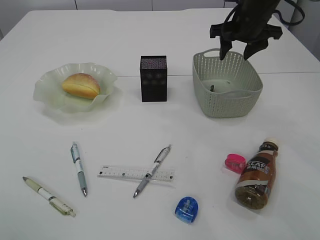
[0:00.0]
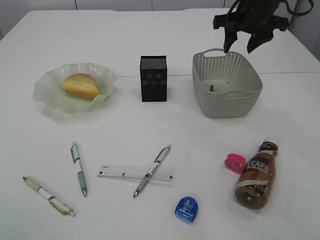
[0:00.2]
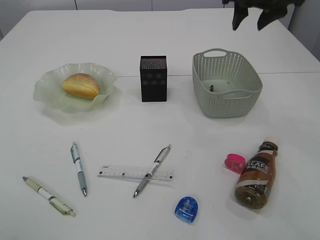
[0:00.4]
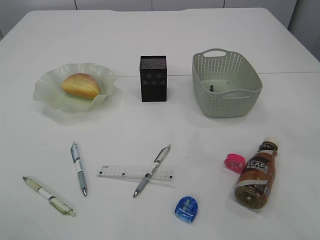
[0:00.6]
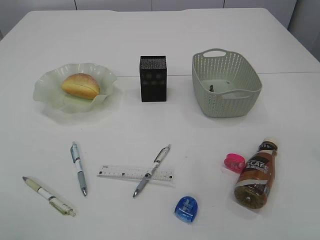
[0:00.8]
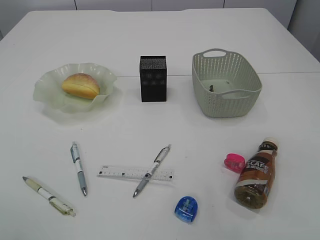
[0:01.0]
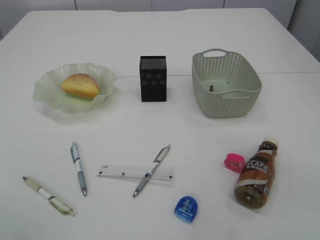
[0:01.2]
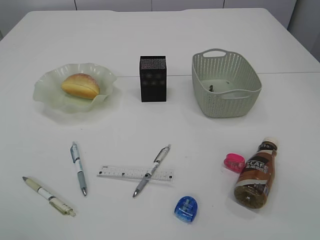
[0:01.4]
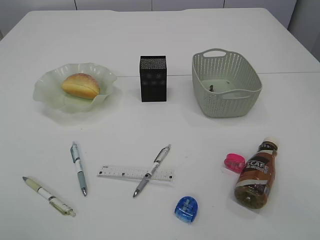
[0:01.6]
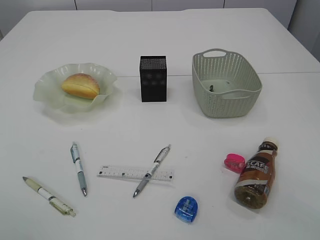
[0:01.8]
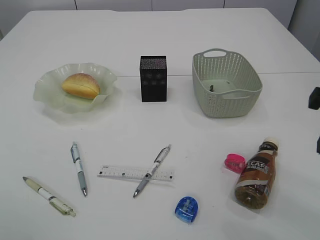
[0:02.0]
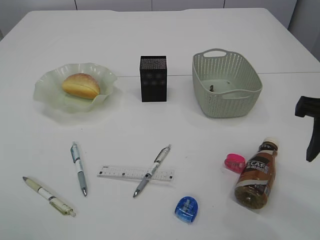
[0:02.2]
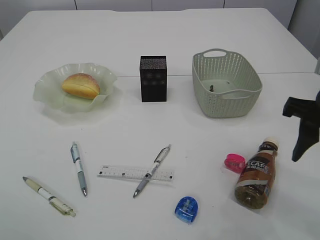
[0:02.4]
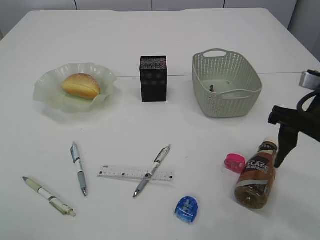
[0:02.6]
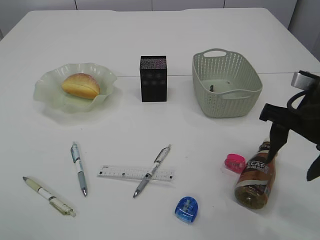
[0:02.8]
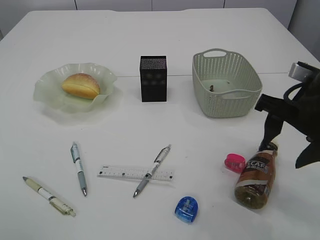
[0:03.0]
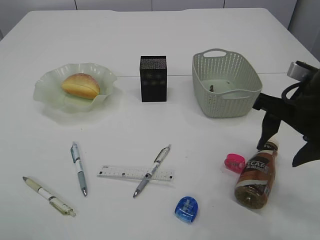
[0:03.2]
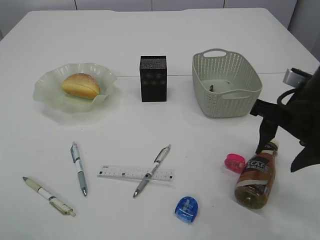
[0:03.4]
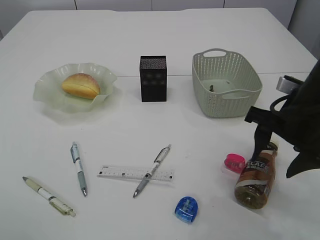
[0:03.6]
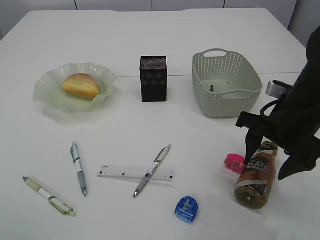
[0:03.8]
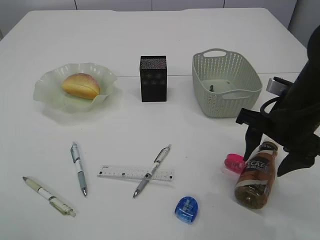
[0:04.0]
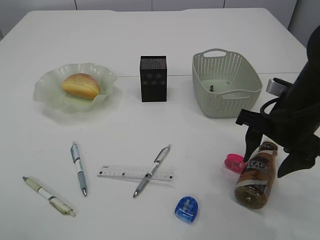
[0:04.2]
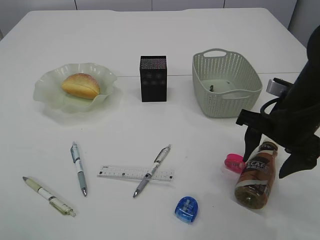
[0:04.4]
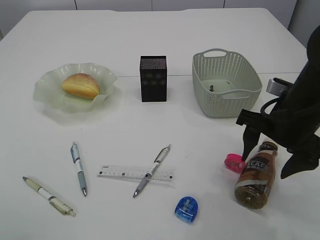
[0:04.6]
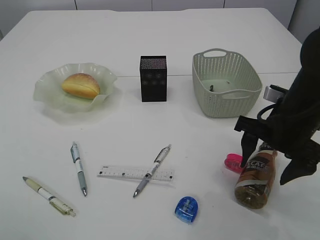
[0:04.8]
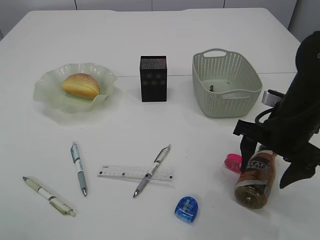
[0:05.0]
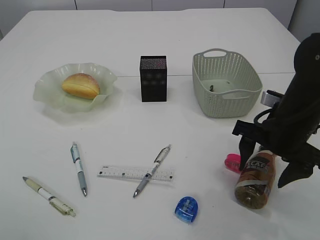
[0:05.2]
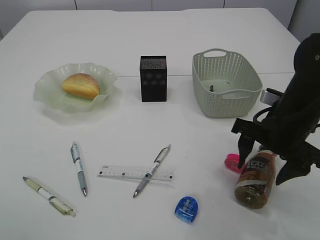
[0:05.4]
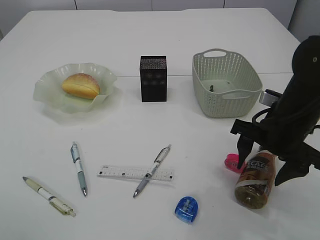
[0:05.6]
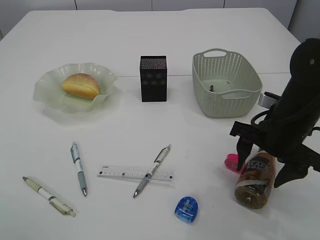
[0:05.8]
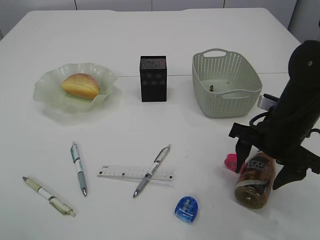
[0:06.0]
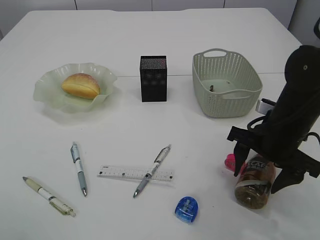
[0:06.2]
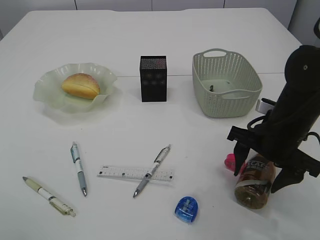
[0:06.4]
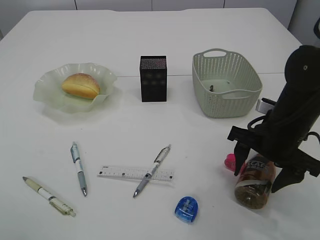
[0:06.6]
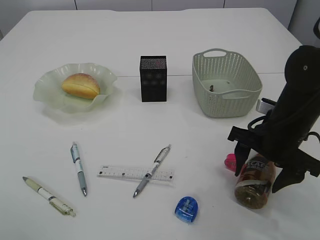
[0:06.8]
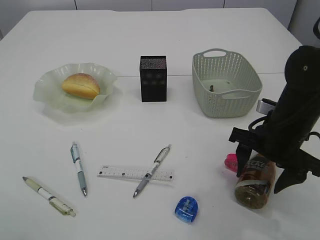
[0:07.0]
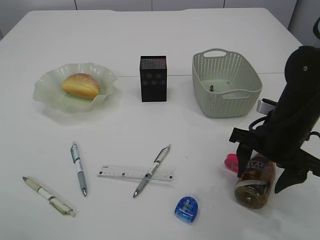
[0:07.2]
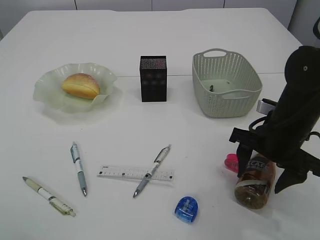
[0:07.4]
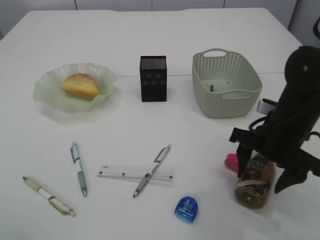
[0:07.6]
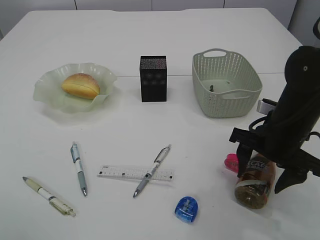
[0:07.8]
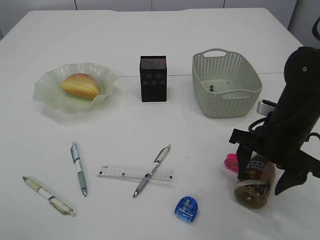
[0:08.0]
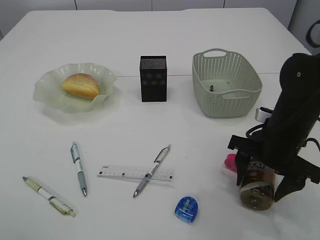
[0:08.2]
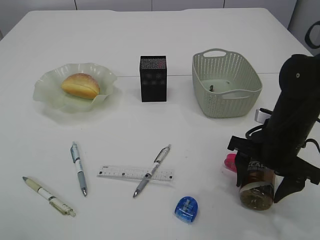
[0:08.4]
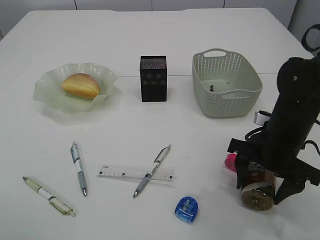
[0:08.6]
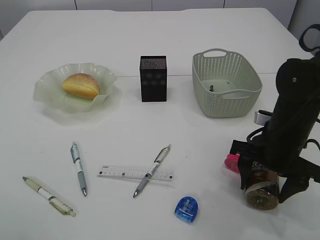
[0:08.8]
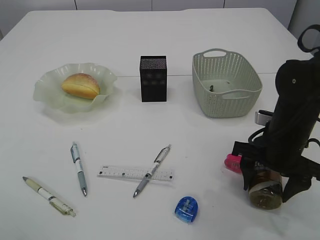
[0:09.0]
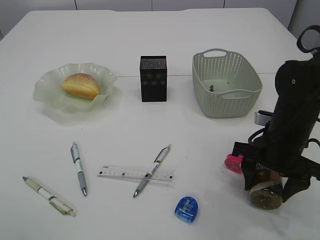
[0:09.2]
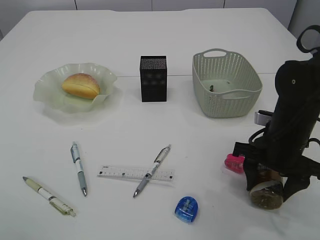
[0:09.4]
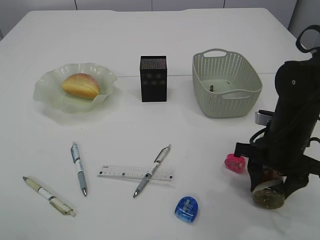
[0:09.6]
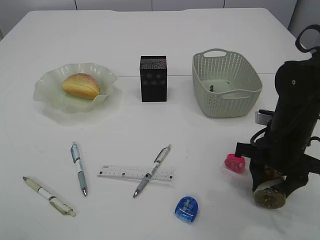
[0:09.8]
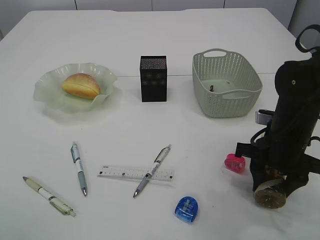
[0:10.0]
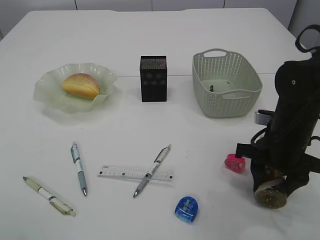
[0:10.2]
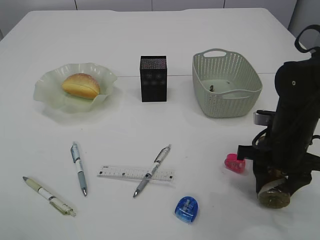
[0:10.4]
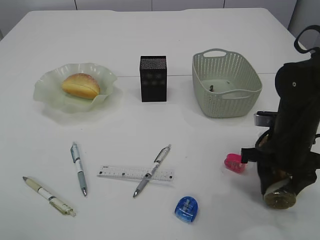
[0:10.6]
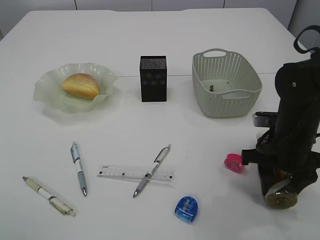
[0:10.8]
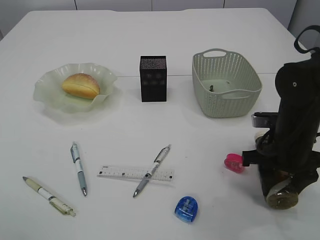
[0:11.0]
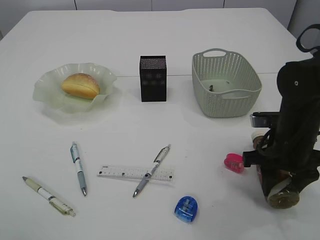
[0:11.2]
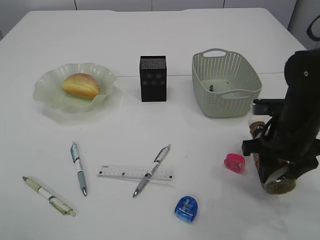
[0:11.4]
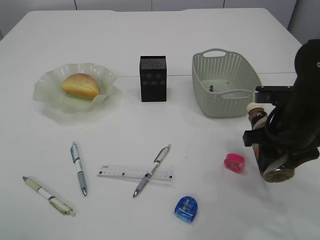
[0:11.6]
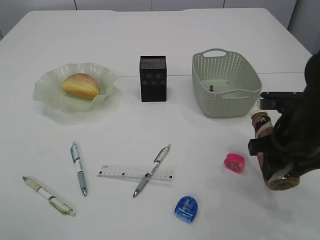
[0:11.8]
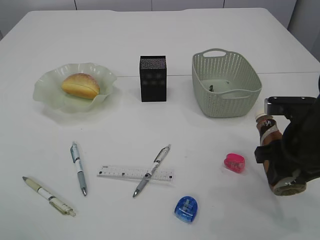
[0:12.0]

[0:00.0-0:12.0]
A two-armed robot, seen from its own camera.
Step, 0:00.4 to 0:12.0: Pick up the bottle with the right arm.
0:00.0 to 0:01.6: The right gripper goes roughly 30 cm backward.
0:01.6 to 0:03.0: The right gripper moves downward and forward, roughly 15 cm.
0:03.0 to 0:04.4: The grippers make only small movements.
0:04.4 to 0:06.0: The grippers move only a little.
0:06.0 to 0:07.6: Both grippers stay about where they are.
0:07.6 to 0:10.4: The grippers make only small movements.
0:10.4 to 0:12.0: The right gripper moves about 5 cm.

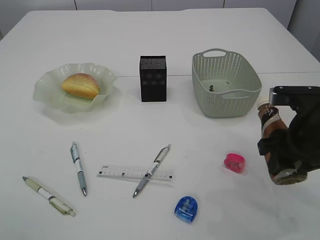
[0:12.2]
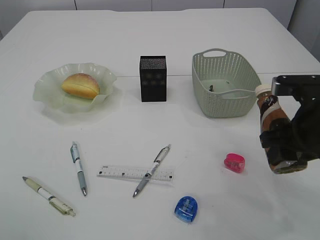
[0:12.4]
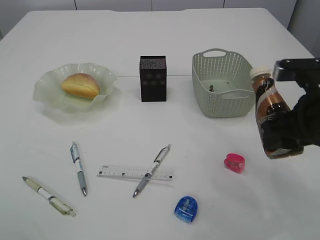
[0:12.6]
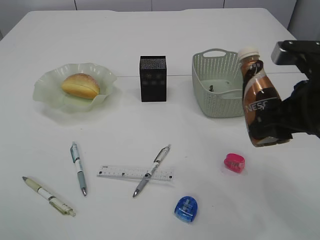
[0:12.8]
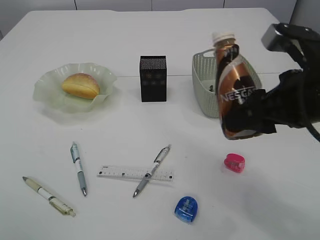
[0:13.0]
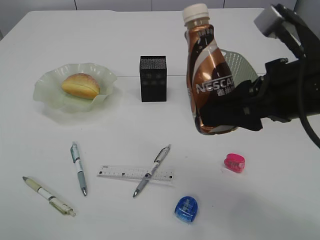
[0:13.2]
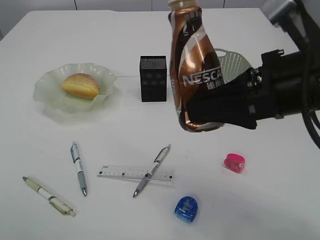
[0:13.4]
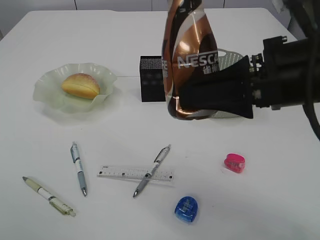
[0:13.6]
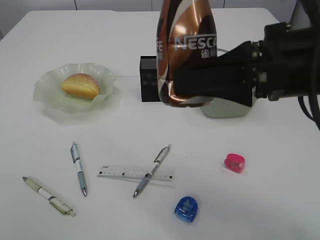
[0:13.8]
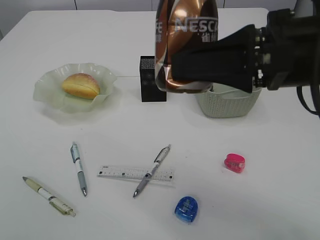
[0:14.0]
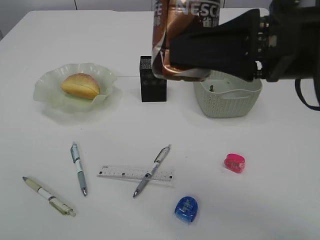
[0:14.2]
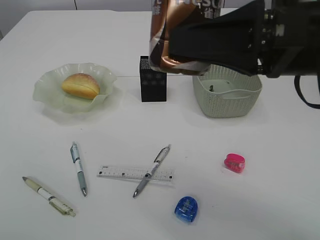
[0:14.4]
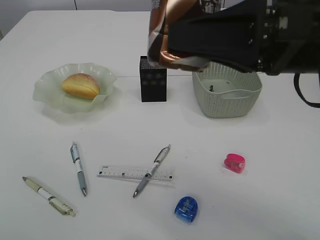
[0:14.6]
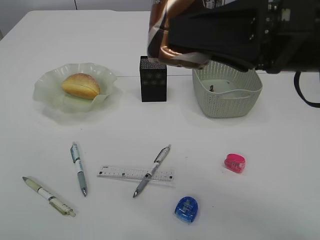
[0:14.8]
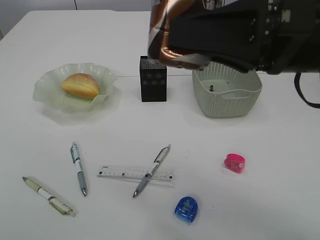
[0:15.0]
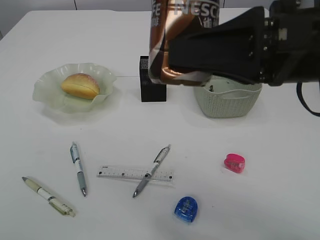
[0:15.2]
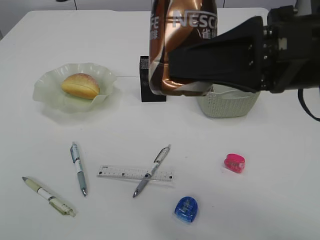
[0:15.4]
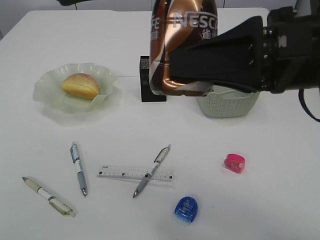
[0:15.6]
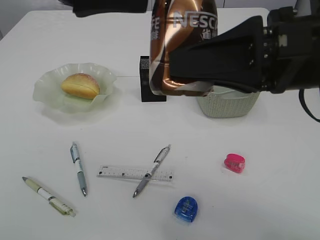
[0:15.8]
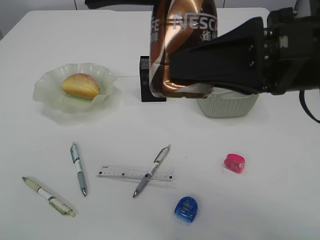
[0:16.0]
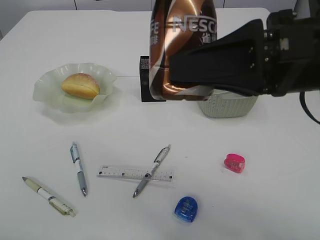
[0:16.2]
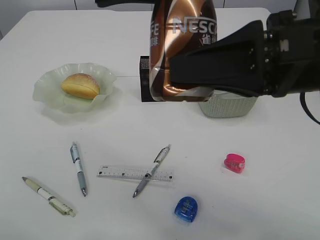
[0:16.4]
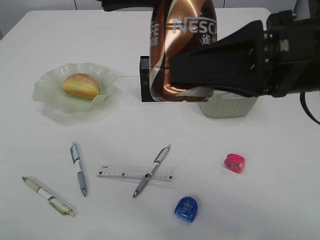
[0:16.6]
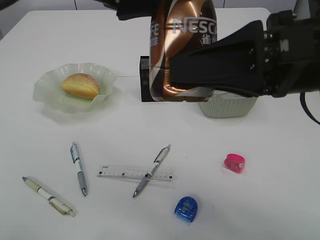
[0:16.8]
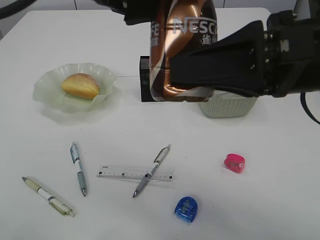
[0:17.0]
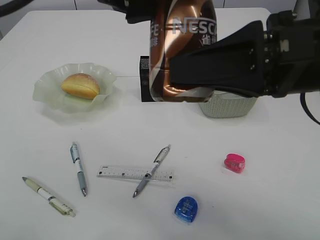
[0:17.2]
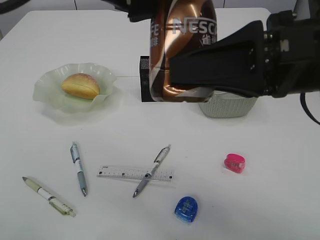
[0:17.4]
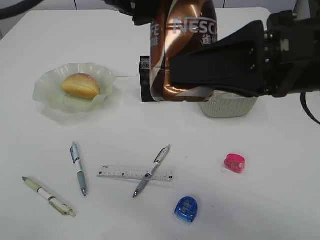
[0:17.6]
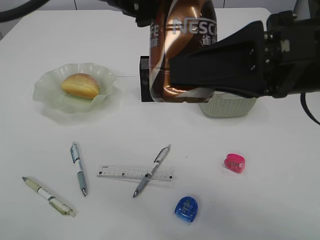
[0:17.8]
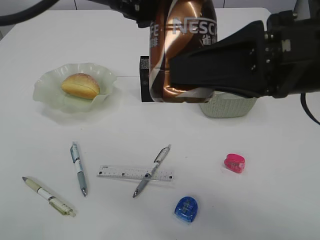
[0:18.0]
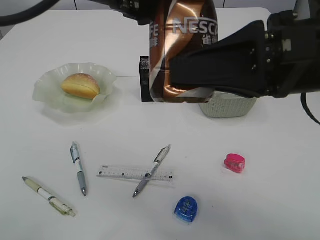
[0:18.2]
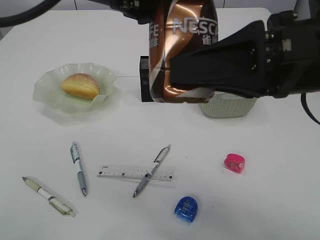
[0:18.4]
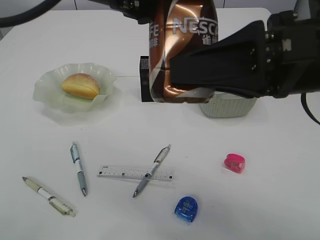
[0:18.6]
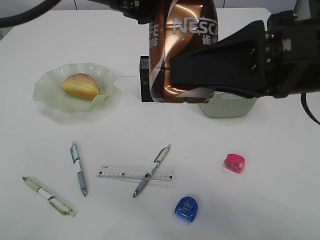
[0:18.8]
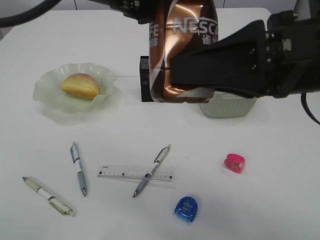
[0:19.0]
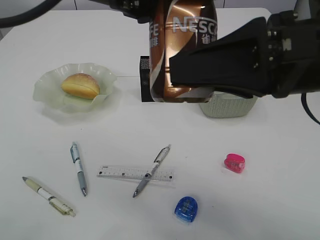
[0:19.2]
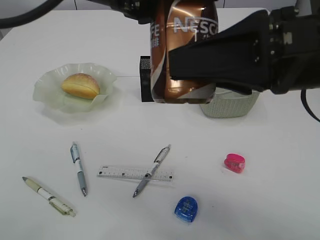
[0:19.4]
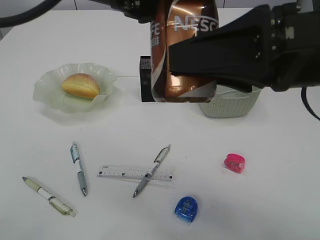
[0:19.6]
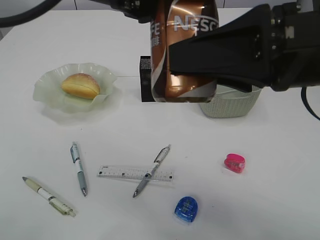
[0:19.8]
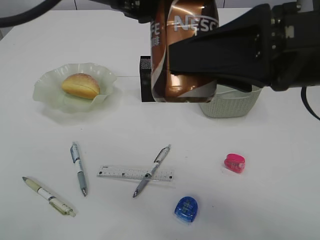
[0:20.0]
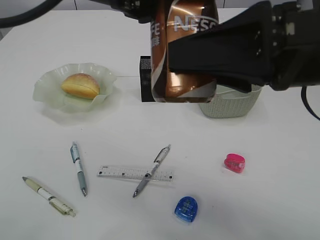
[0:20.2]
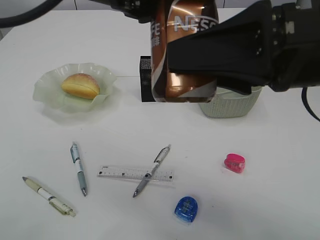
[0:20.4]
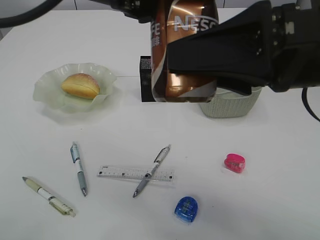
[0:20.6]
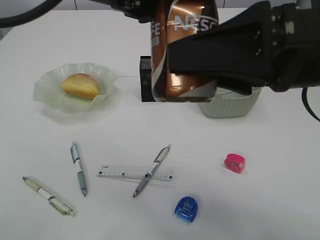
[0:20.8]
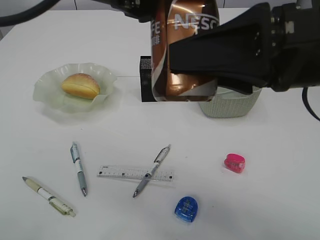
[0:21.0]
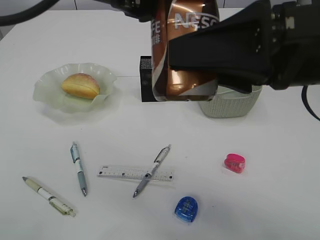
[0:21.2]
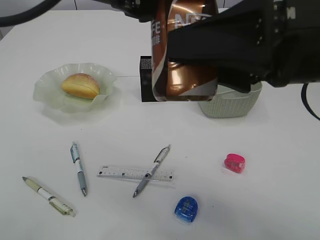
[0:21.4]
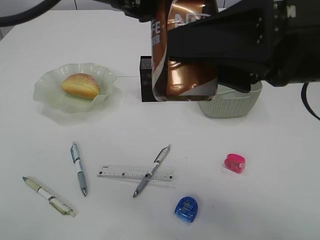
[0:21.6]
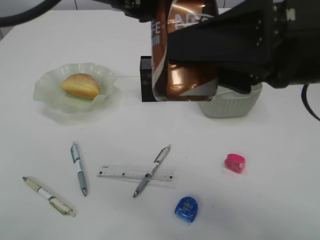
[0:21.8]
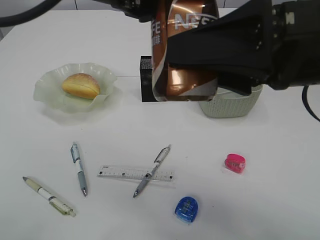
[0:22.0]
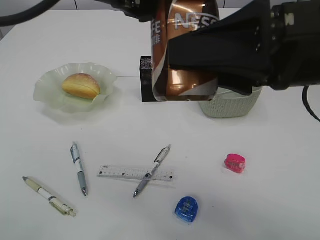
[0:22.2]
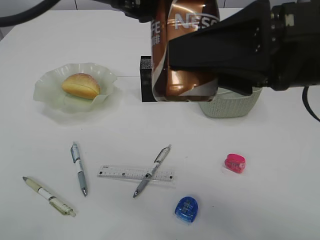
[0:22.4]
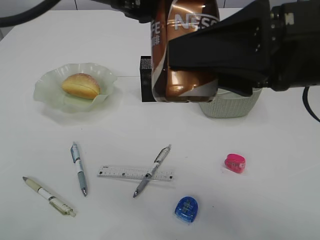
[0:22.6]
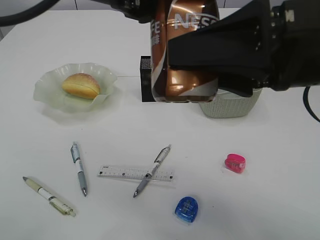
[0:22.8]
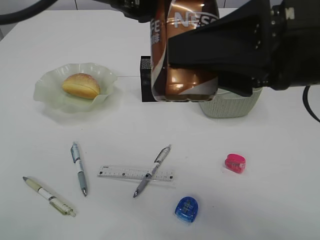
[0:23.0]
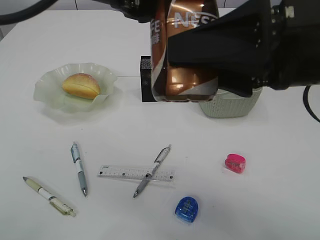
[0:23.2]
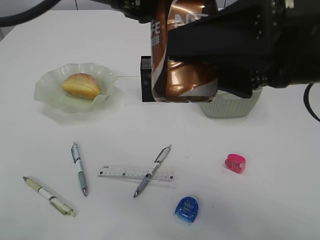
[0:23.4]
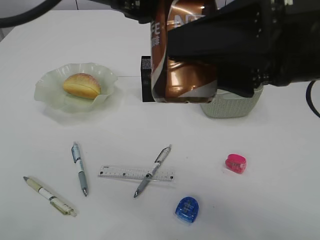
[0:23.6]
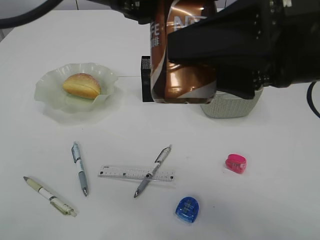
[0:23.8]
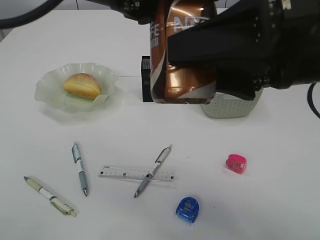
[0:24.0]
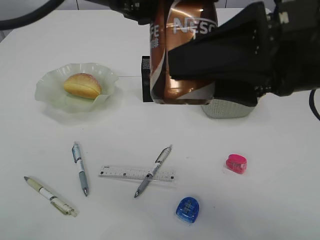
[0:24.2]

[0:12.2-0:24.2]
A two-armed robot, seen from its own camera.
0:12.2 to 0:13.8: The right gripper is displaced upward and to the left by approximately 15 cm.
0:13.8 to 0:15.2: The left gripper shifts about 10 cm to the right and forward.
0:15.2 to 0:16.6: The left gripper moves approximately 5 cm.
0:16.6 to 0:18.2: The left gripper closes up.
0:18.2 to 0:21.2: The two grippers keep their place.
0:21.2 to 0:22.6: Both grippers stay about where they are.
0:22.6 to 0:24.2: The grippers move only a little.
